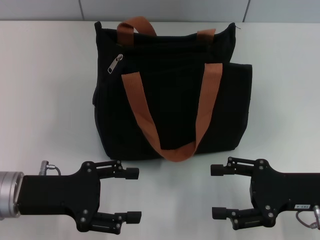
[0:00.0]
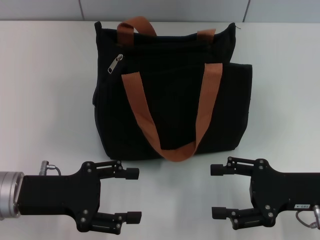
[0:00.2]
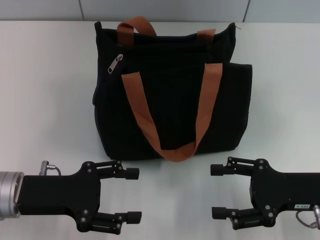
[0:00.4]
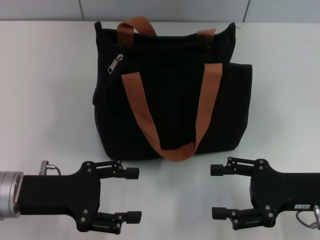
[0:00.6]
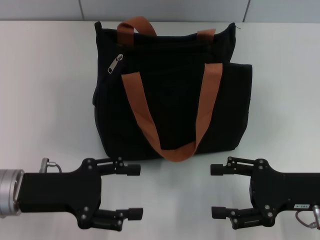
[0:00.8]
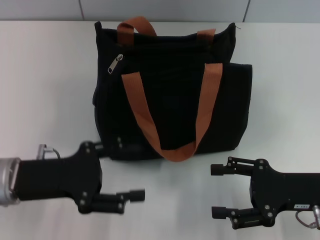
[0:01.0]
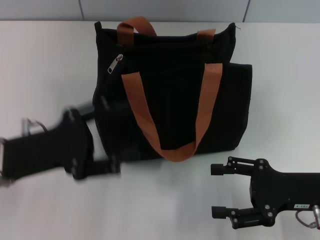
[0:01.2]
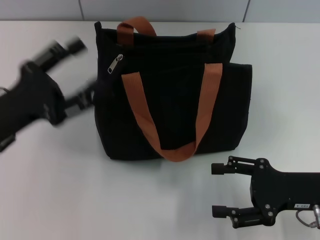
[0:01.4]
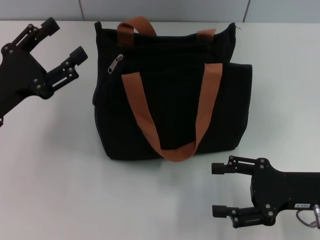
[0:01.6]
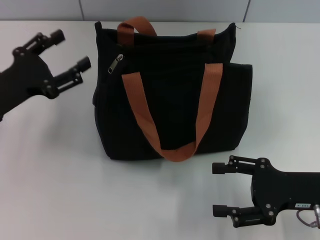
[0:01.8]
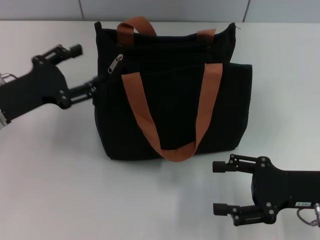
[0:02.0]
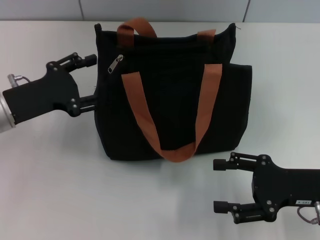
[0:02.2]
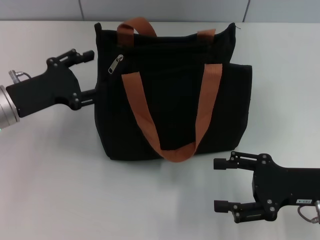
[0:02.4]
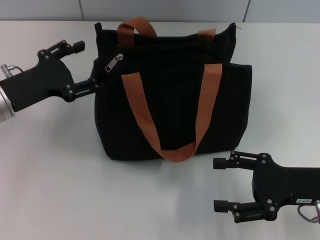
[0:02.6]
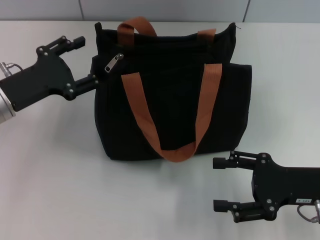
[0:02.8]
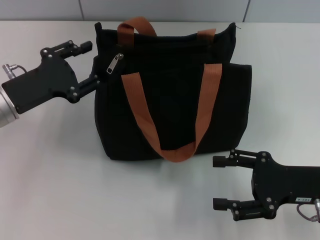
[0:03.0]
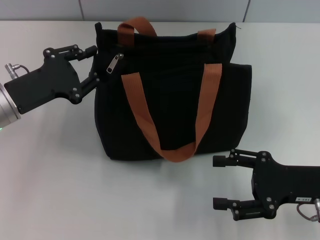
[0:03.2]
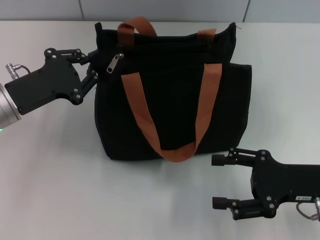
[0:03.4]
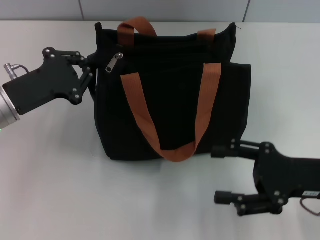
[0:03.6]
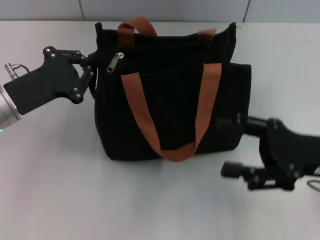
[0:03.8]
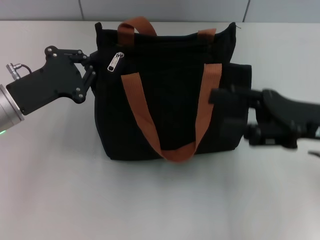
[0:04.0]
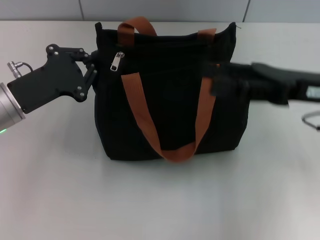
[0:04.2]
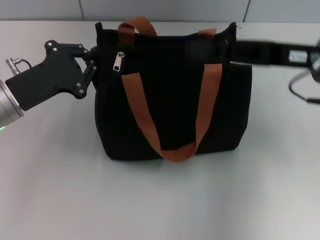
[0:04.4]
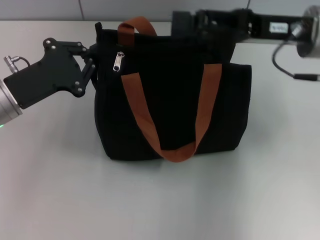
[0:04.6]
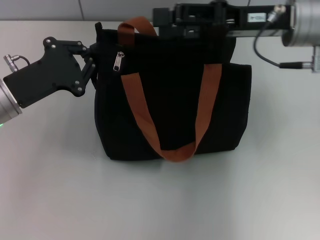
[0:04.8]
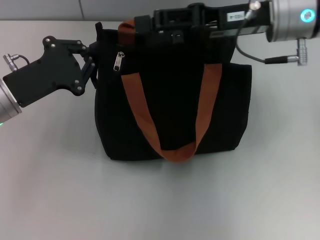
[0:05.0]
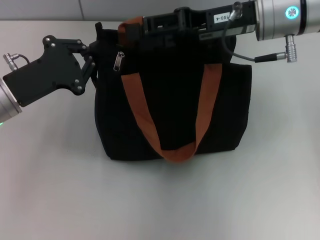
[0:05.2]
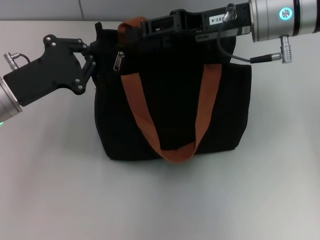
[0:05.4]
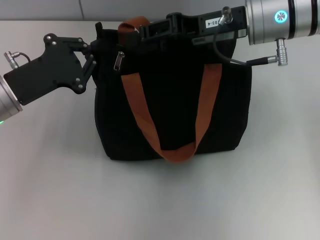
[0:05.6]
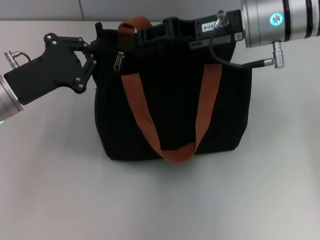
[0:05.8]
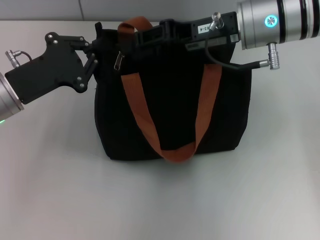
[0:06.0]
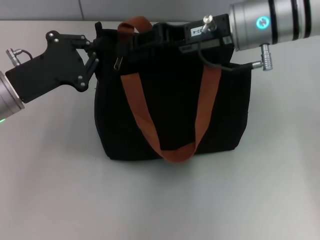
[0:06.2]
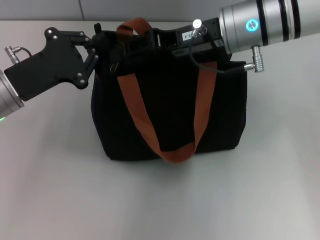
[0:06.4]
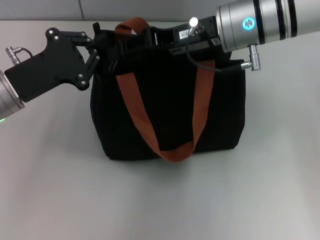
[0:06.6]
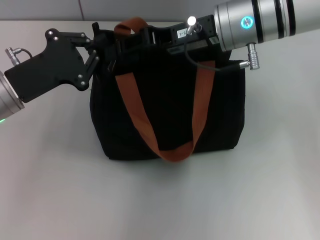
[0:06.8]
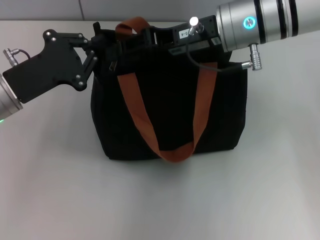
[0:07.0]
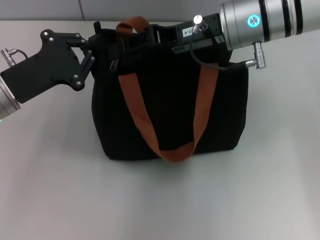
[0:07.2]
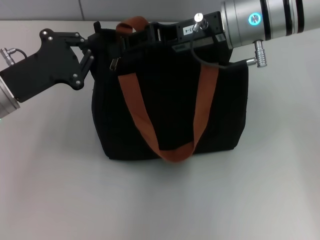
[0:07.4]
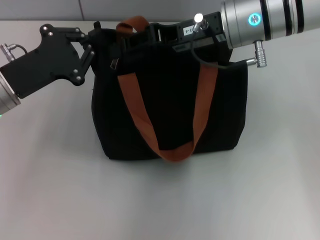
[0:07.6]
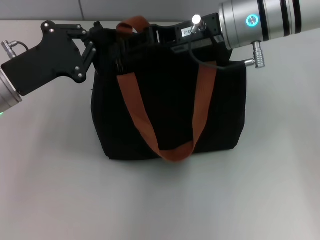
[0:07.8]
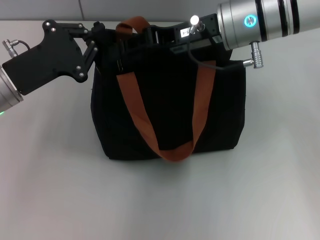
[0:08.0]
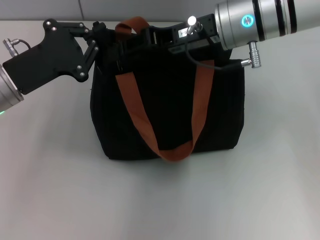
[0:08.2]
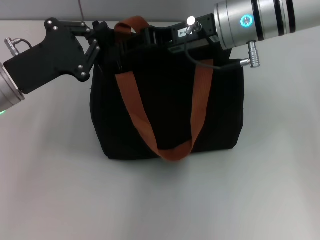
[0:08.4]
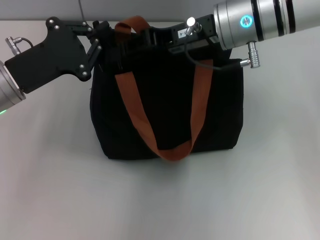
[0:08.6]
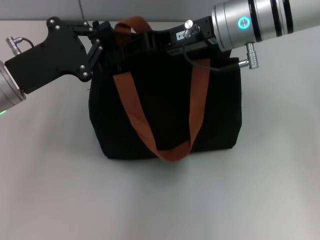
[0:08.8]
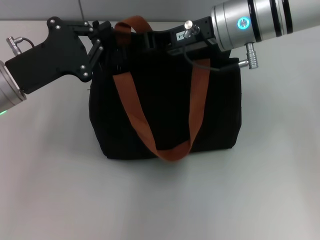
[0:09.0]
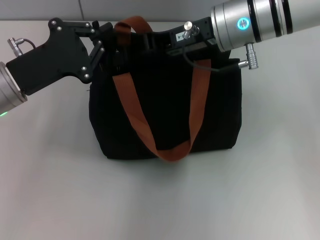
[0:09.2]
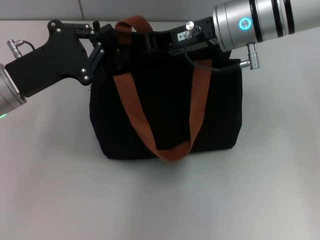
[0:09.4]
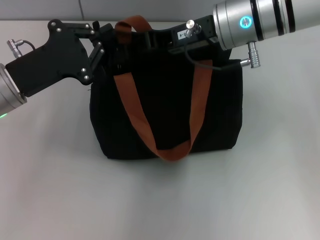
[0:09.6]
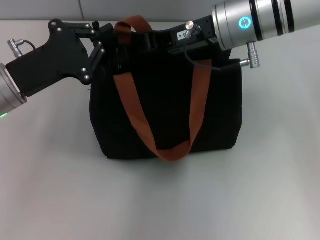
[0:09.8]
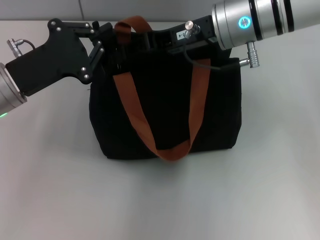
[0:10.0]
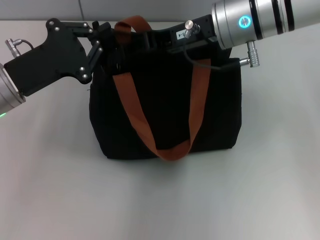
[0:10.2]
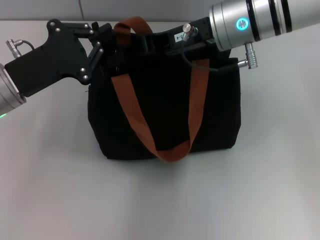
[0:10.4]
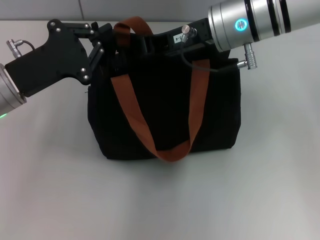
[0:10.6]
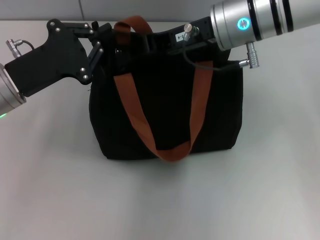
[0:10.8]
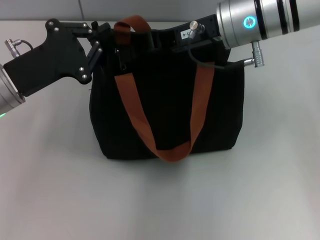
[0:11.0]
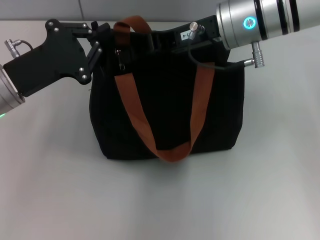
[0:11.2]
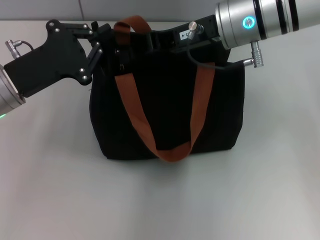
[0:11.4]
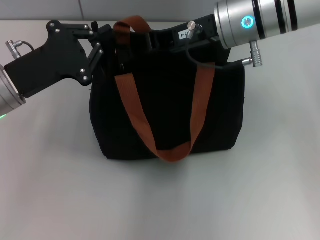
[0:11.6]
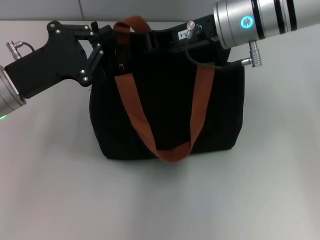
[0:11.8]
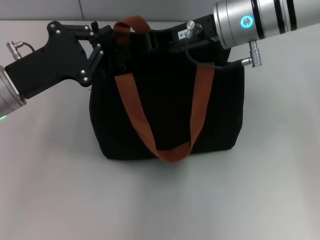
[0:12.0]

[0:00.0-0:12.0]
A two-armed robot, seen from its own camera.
0:00.0 to 0:01.6: The left gripper ends up about 5 cm from where it was.
0:03.0 to 0:04.4: The right gripper heads upward and forward, covering about 15 cm; the left gripper closes up.
0:04.4 to 0:06.0: The right gripper moves to the left and forward, about 10 cm, and closes its fingers.
0:06.0 to 0:07.6: The grippers move only a little.
0:07.6 to 0:09.0: The two grippers keep their place.
0:09.0 to 0:12.0: Neither gripper changes place.

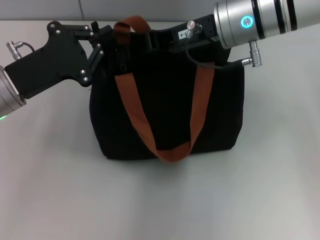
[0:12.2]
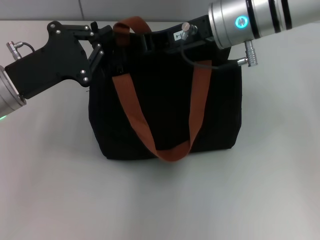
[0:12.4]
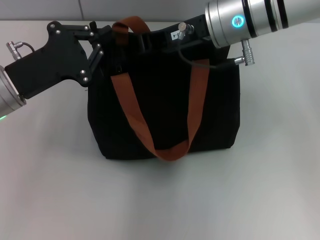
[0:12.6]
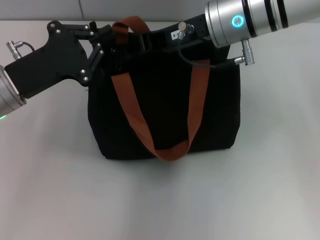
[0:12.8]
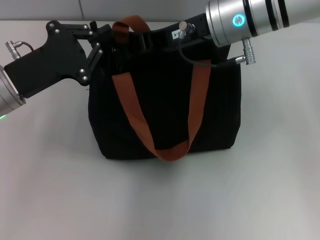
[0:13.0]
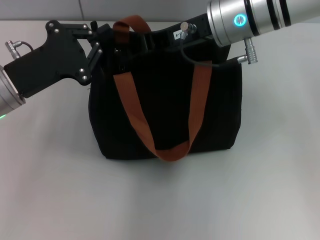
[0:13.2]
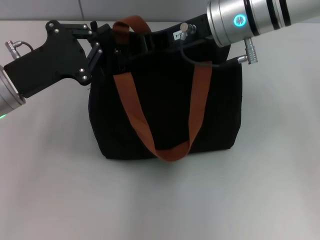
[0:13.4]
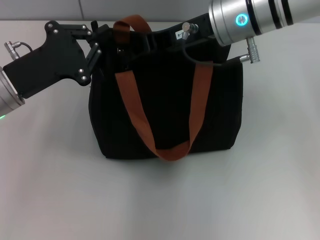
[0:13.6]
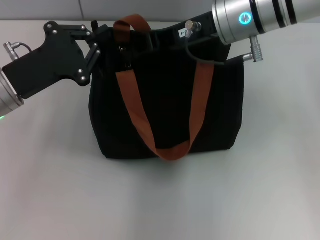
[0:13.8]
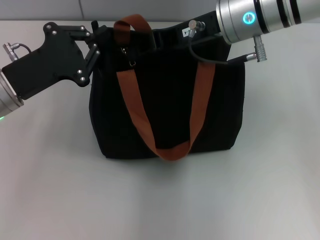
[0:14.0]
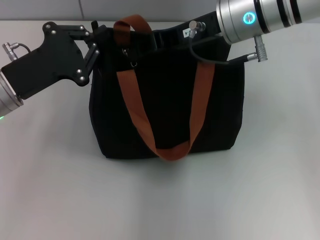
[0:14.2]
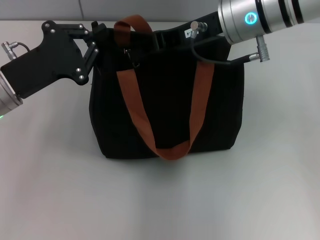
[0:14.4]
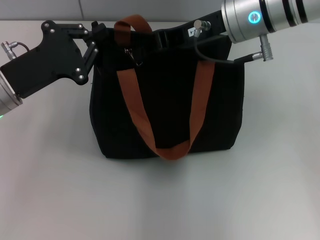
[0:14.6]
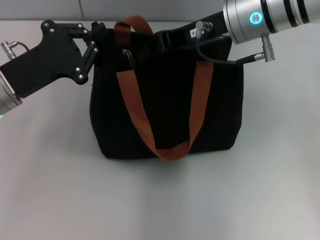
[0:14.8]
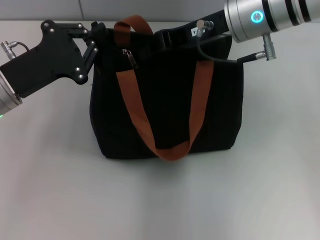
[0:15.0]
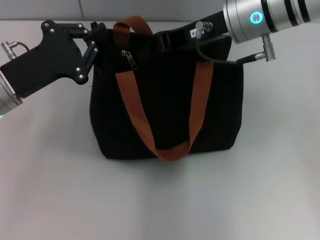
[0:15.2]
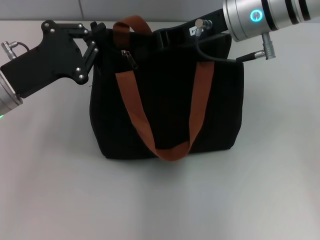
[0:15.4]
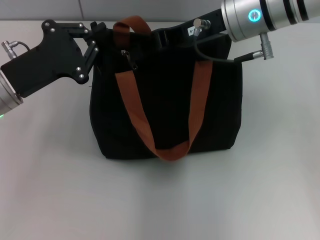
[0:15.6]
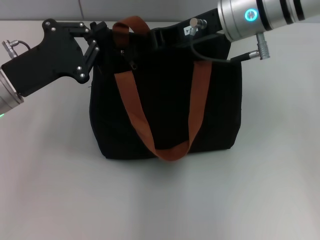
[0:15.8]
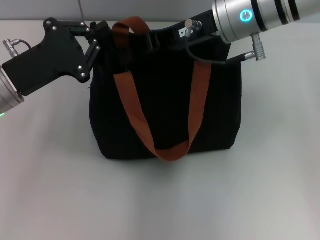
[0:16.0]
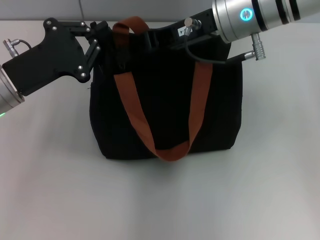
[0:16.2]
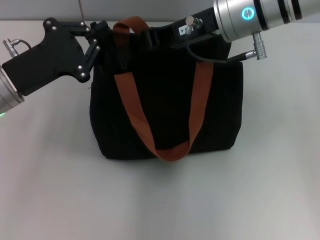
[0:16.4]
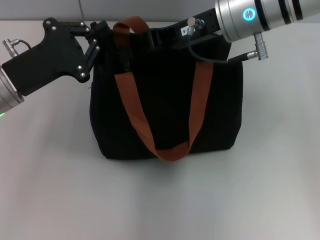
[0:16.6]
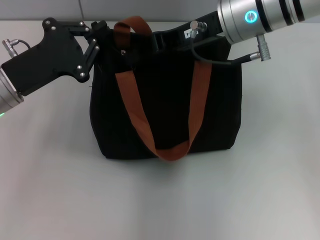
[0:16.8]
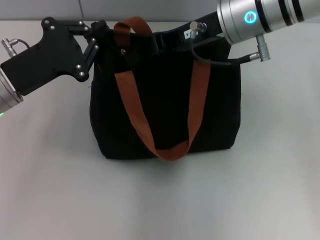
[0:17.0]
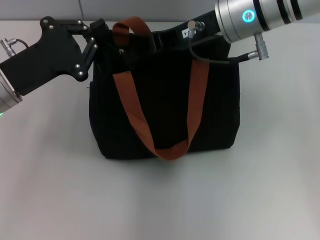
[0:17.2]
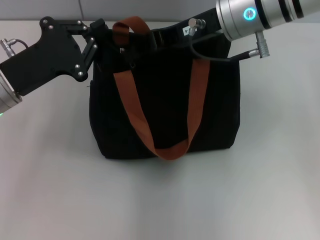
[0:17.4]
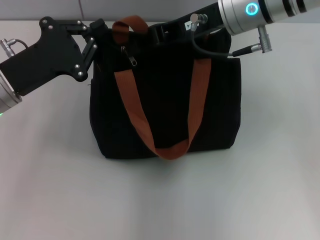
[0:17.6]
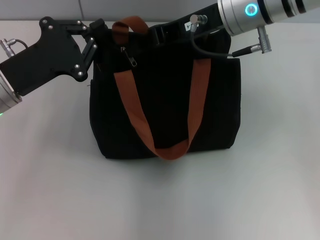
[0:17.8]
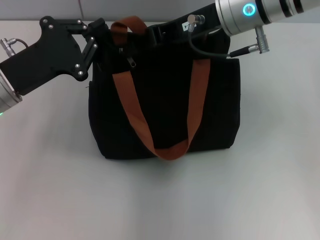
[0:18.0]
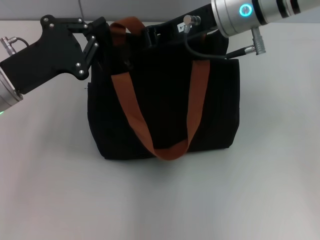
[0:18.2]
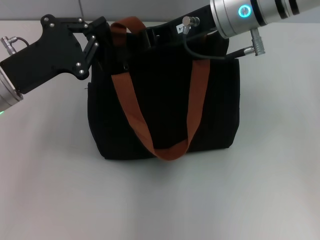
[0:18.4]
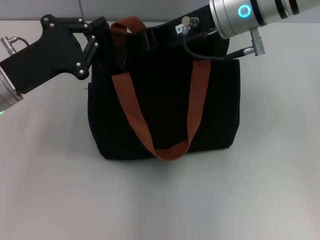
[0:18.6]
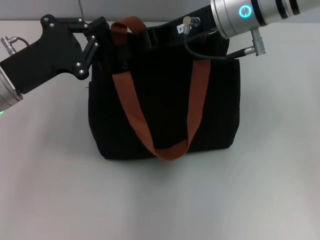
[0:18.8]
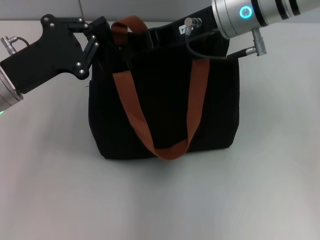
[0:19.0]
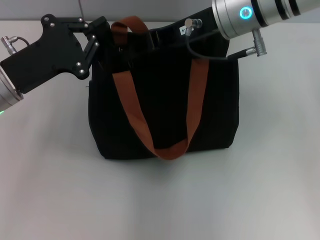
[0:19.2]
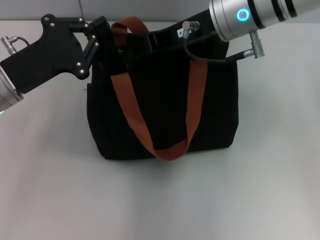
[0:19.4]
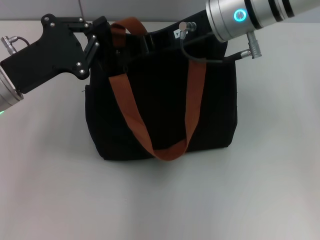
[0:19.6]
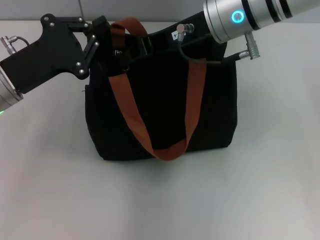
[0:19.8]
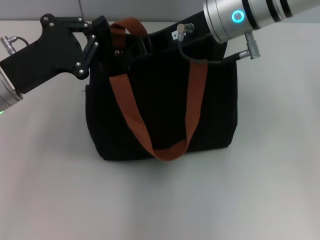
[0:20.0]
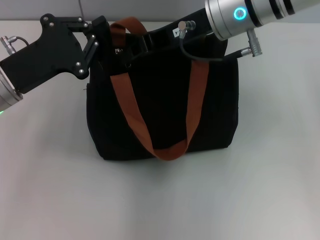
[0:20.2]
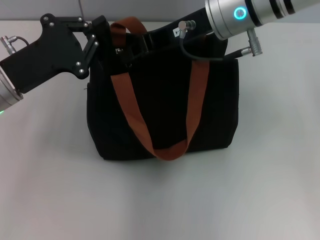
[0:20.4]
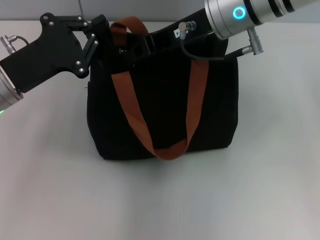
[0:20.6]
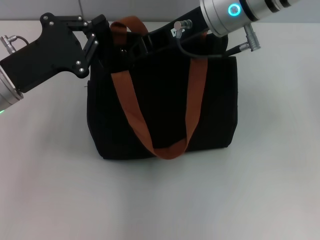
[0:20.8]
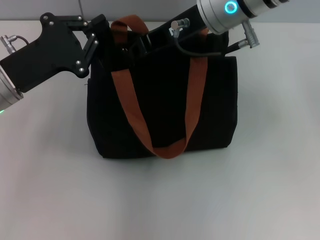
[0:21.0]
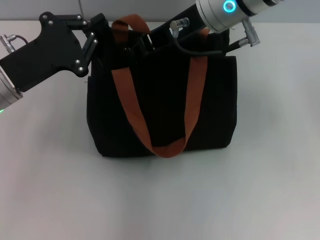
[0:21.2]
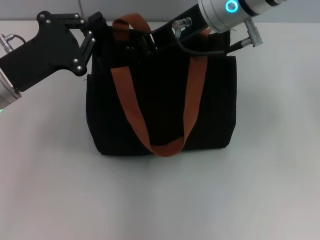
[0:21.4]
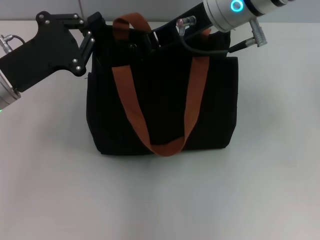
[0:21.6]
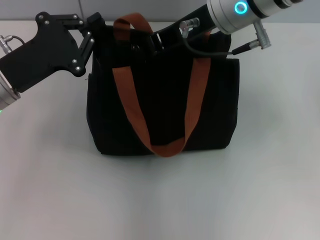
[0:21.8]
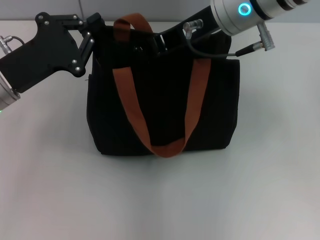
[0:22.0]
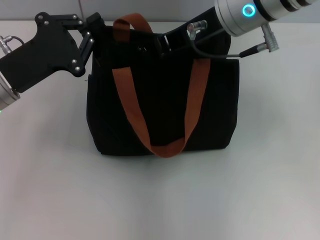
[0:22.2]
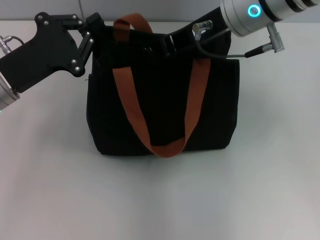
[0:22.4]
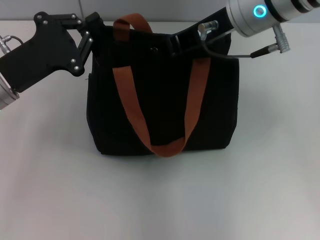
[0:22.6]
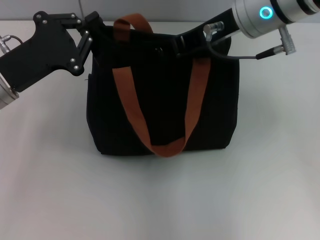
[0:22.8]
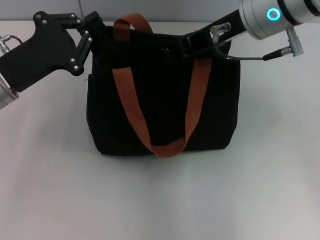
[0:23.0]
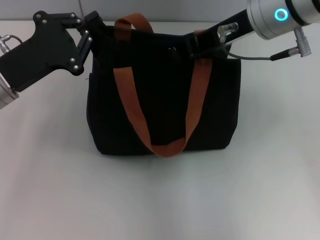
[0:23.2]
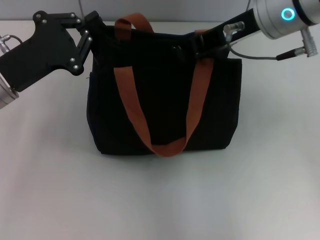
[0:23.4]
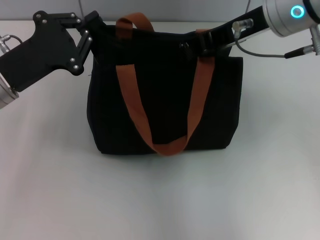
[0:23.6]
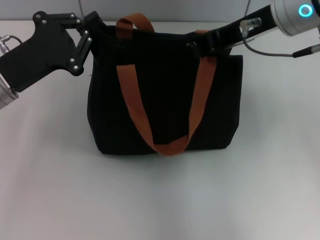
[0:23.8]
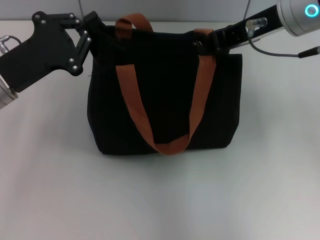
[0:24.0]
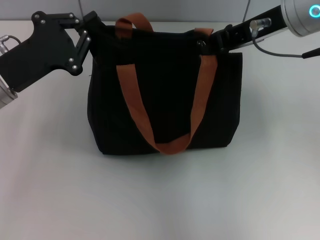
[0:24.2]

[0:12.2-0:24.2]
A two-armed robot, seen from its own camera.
0:12.2 to 0:13.8: The grippers move only a little.
0:13.8 to 0:15.2: Both grippers stay about where they are.
0:15.2 to 0:18.2: The grippers make only small movements.
0:18.2 to 0:19.8: Both grippers stay about where they are.
0:19.8 to 0:22.6: The grippers make only small movements.
0:22.6 to 0:24.2: The right gripper goes approximately 5 cm to the right.
